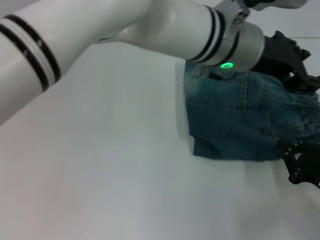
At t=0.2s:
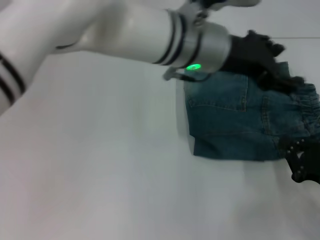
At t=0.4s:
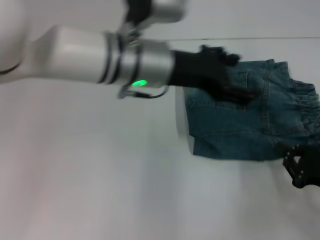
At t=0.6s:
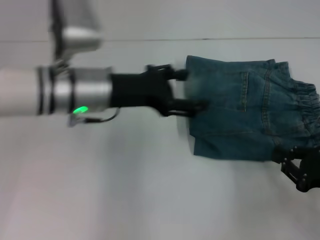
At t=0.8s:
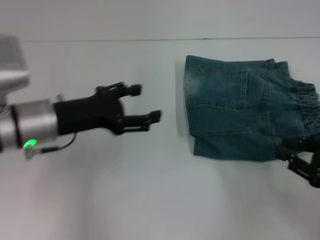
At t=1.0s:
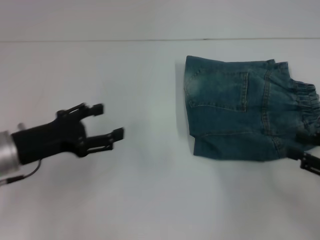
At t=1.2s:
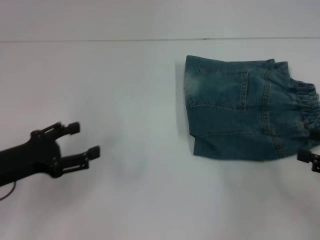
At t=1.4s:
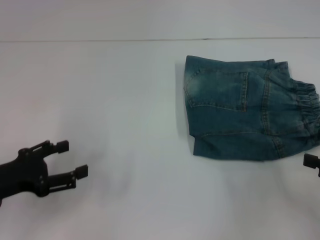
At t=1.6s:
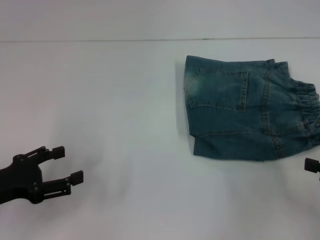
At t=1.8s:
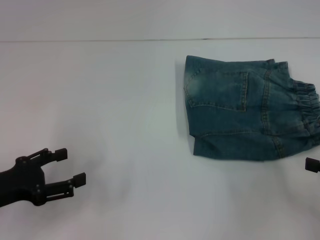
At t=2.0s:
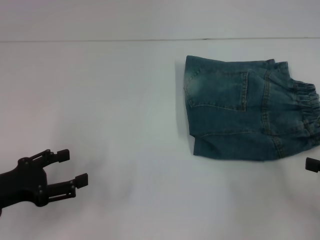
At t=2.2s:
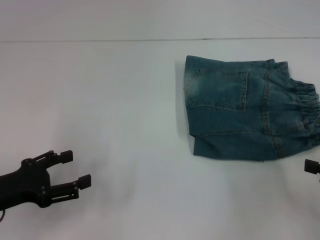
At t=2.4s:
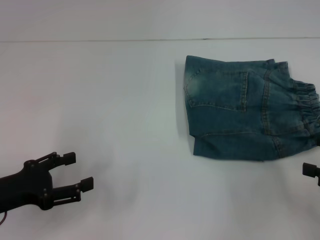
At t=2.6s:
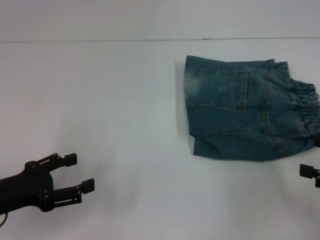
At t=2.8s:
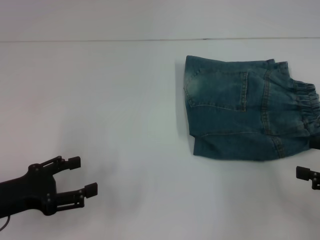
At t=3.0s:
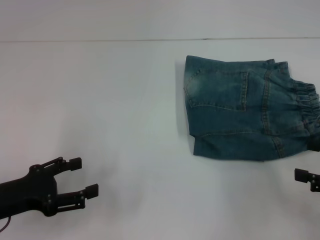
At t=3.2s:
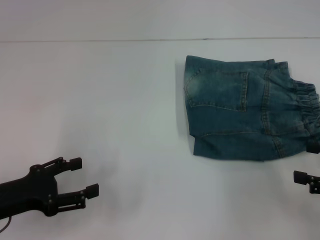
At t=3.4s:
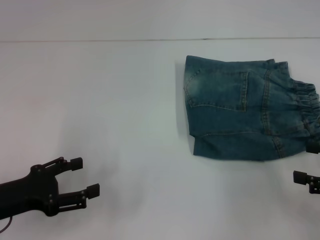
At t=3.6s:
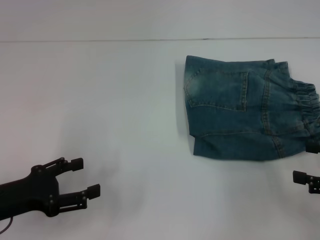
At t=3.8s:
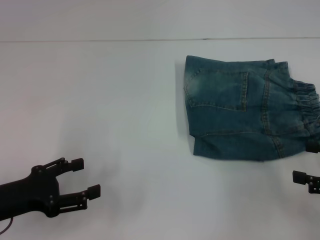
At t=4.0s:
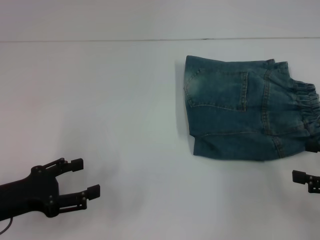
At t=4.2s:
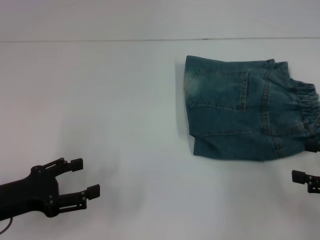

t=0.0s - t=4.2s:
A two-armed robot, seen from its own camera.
t=0.0s - t=1.4s: The left gripper goes some 40 cm to the left and downward, and opens up. Meanwhile the right gripper shifts roughly 10 cm upward and to the right, and opens.
t=1.4s - t=2.8s: The right gripper opens its fingers.
t=2.8s - t=4.2s: The two grippers keep their place.

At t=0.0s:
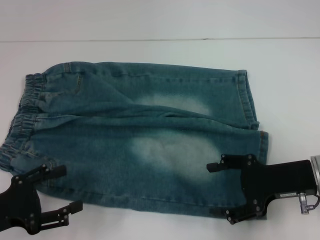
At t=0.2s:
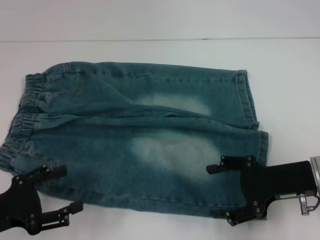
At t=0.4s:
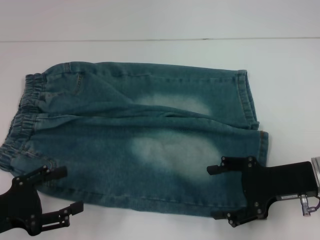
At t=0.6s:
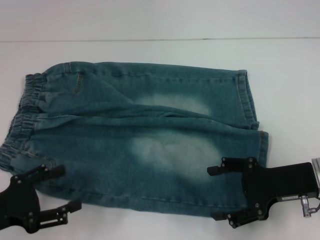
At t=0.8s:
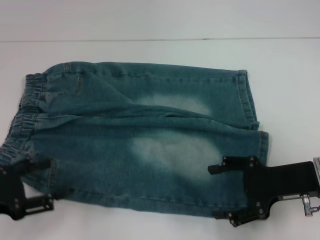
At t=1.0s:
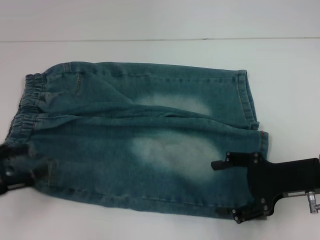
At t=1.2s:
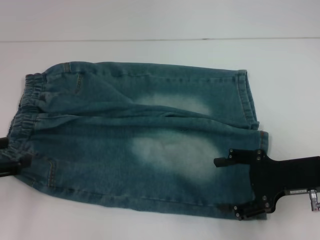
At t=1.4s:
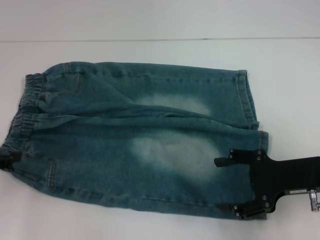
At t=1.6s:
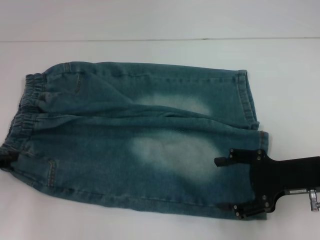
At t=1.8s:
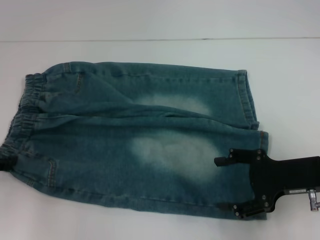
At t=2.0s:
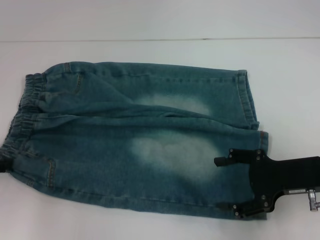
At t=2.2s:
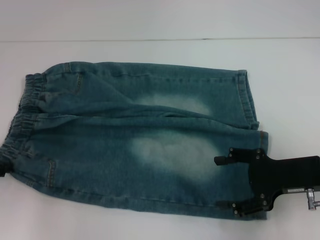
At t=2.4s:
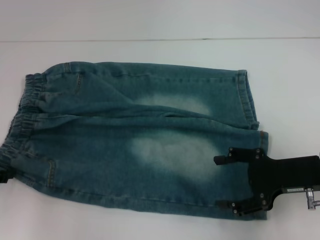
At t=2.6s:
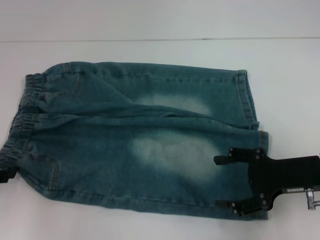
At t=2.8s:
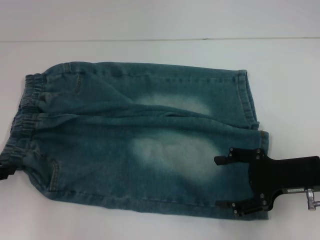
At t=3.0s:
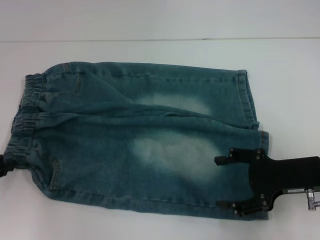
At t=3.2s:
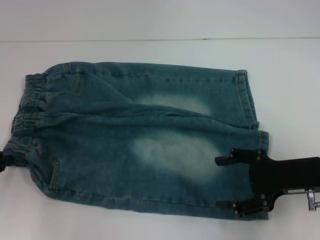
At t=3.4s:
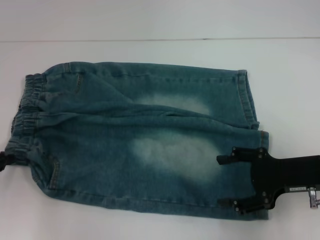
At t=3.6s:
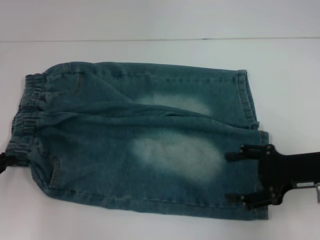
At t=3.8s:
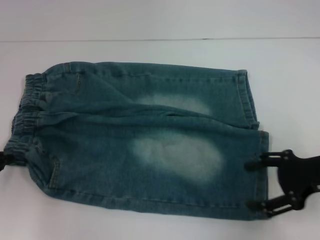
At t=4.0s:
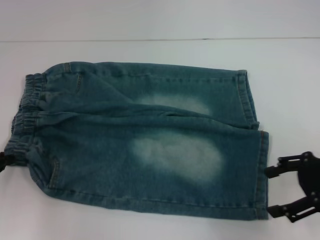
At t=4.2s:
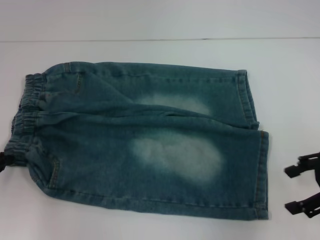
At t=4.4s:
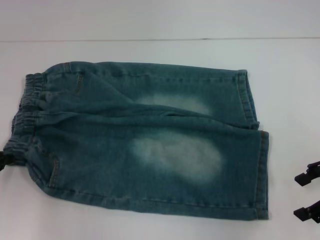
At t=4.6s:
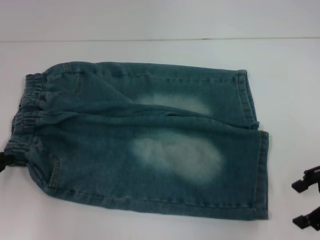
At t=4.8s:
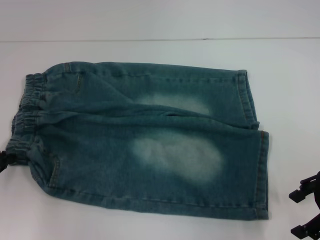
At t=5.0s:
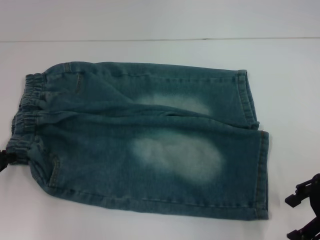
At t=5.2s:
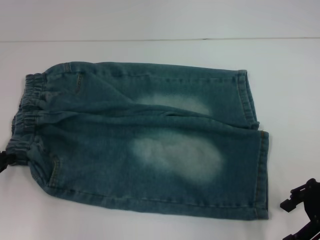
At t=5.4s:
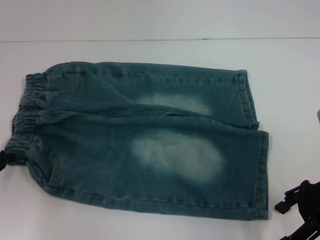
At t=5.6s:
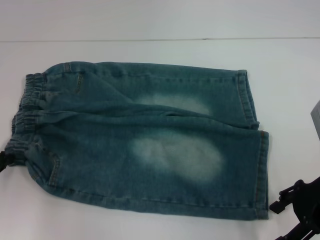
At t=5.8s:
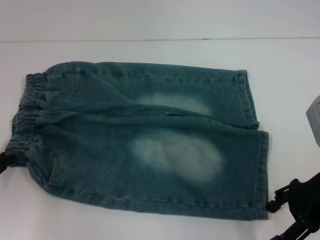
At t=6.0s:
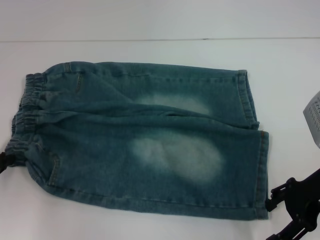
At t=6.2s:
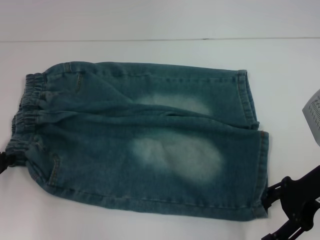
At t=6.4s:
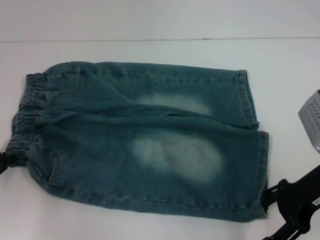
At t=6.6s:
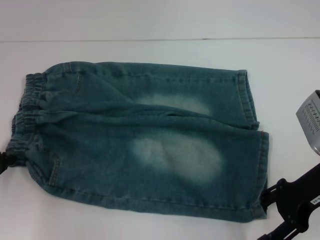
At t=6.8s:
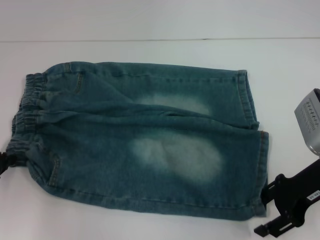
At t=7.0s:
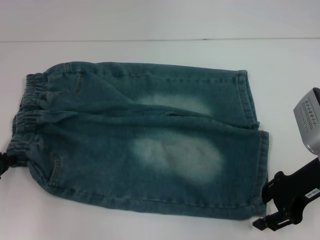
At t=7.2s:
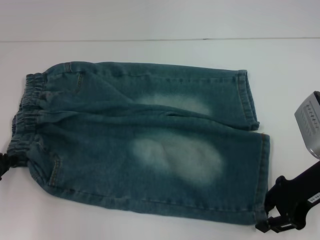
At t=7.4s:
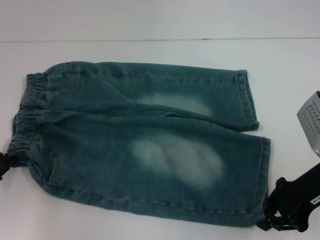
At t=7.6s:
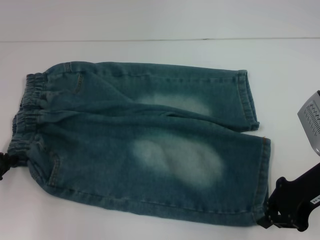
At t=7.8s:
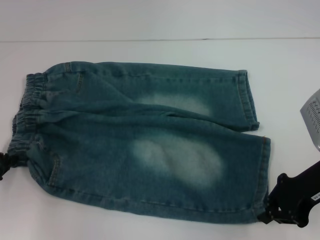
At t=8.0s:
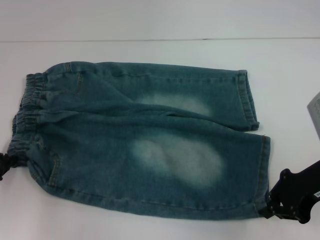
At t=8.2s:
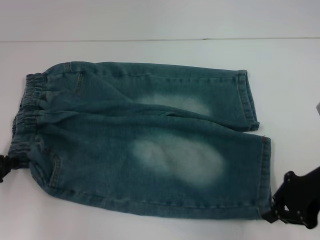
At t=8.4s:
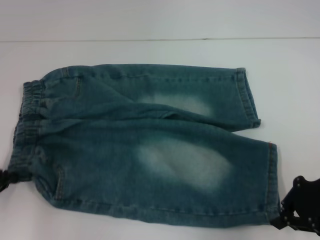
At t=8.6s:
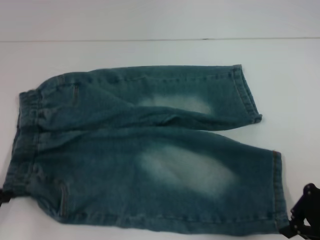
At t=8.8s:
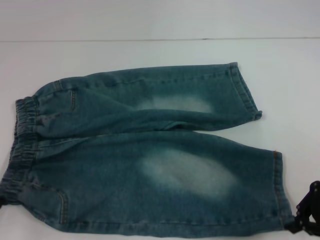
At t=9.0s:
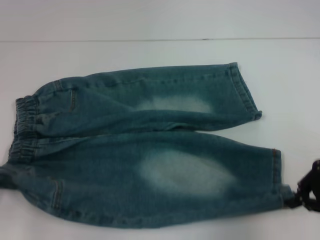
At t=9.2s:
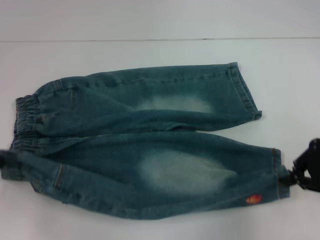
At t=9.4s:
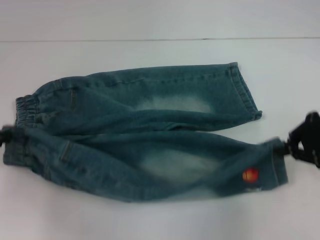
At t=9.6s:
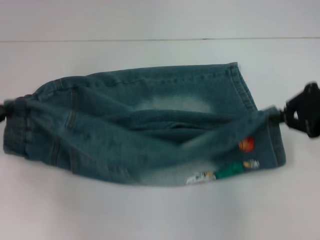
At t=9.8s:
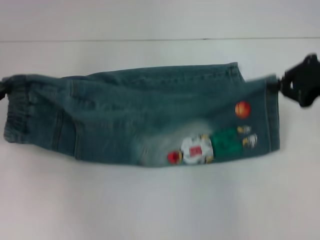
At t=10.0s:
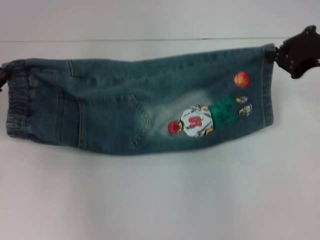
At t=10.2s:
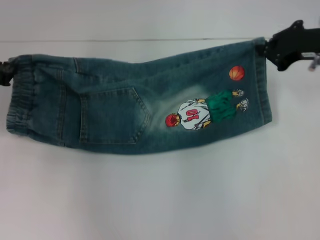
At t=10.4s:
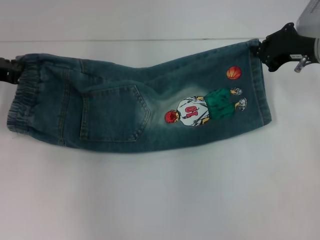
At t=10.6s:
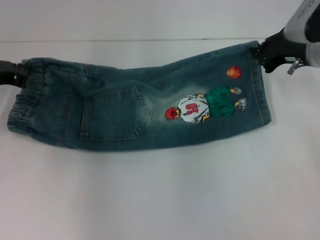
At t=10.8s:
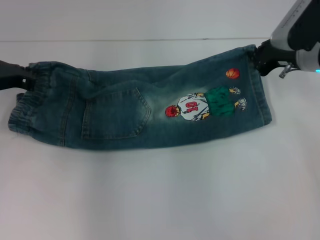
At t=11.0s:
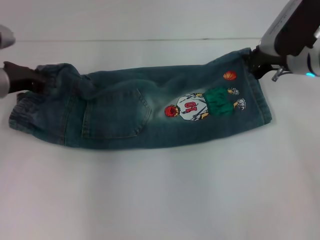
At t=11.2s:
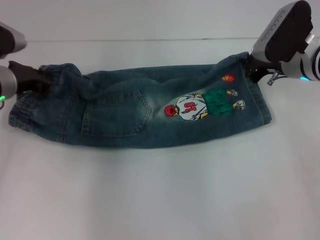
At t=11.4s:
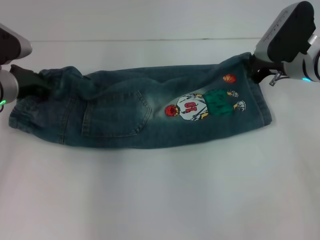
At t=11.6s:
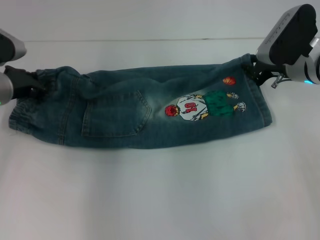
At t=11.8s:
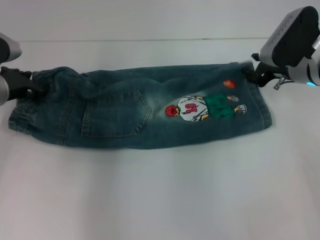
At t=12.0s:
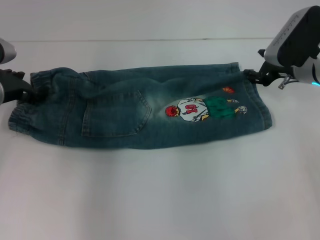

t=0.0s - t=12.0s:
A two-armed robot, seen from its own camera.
Step, t=0.0s - t=3.2s: Hold the lower left waistband with your left hand.
Step, t=3.4s - t=8.0s: Grab the lower right pant leg with your right hand.
Step, t=8.2s - t=11.8s: Fold upward with your right hand.
t=0.0s - t=1.6s: The left gripper goes some 10 cm forward and upward.
t=1.6s - t=3.0s: The left gripper closes up.
t=3.0s - t=4.4s: The left gripper closes its fingers; the right gripper shifts some 5 cm upward.
t=4.4s - t=6.0s: The right gripper changes place by some 5 cm.
t=6.0s - t=7.6s: The right gripper closes.
t=7.6s - t=9.0s: The left gripper goes roughly 5 cm backward; the right gripper travels to the right by about 5 cm.
t=9.0s - t=10.4s: The right gripper moves forward, approximately 15 cm; the left gripper is displaced forward and to the right by approximately 15 cm.
t=10.4s - t=12.0s: The right gripper goes some 5 cm downward, and opens its fingers. The left gripper ends up some 5 cm from where it was, and opens its fingers.

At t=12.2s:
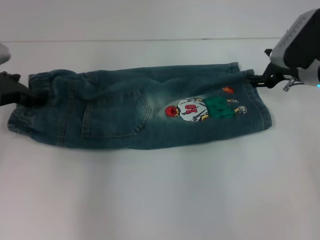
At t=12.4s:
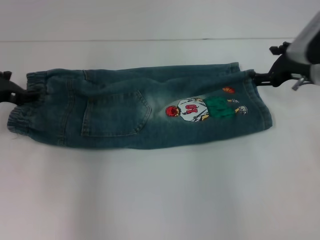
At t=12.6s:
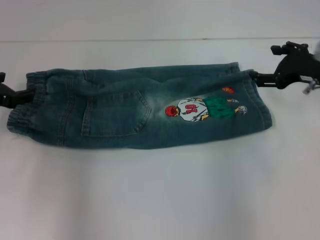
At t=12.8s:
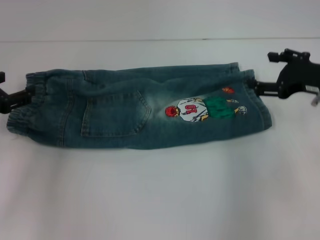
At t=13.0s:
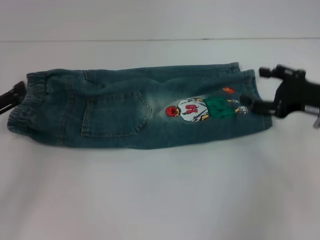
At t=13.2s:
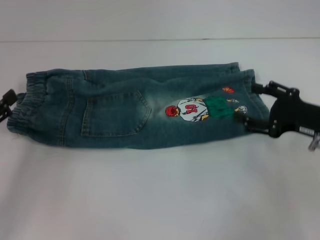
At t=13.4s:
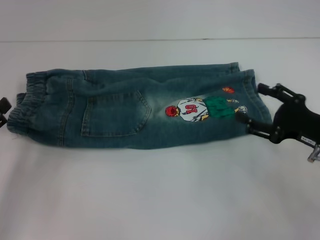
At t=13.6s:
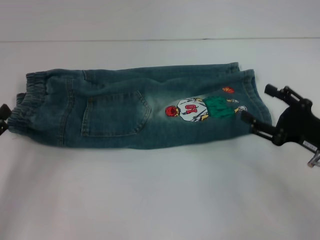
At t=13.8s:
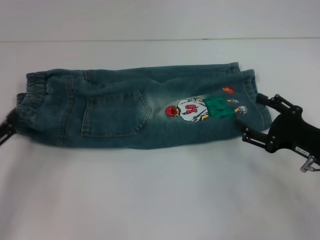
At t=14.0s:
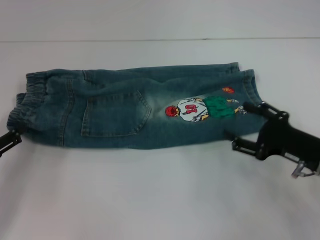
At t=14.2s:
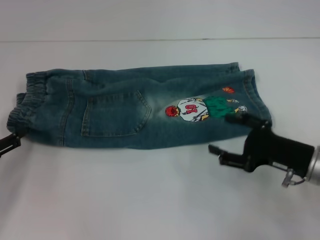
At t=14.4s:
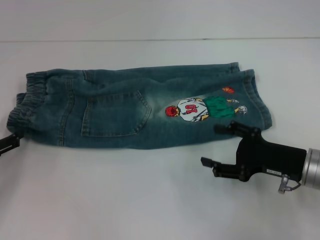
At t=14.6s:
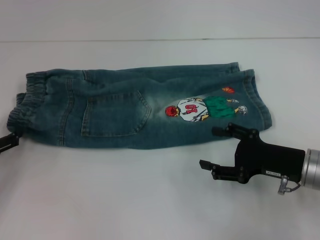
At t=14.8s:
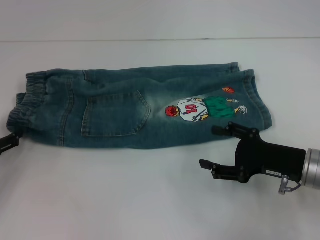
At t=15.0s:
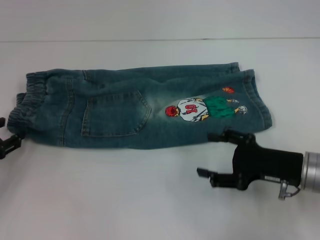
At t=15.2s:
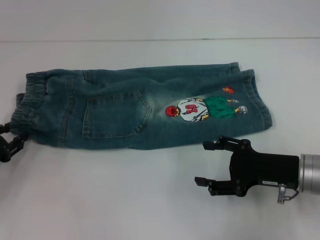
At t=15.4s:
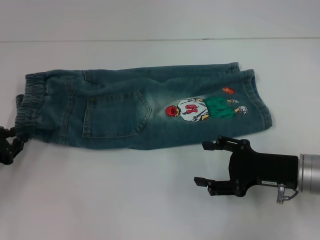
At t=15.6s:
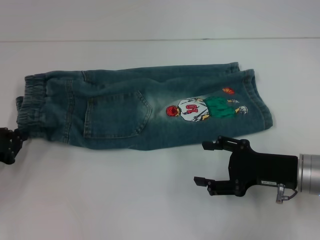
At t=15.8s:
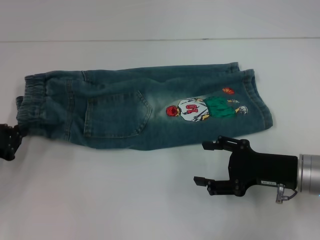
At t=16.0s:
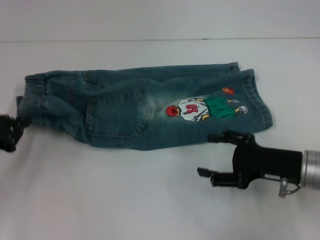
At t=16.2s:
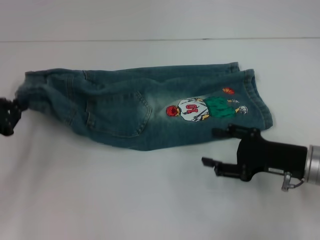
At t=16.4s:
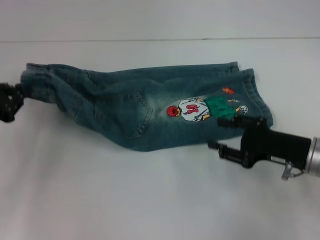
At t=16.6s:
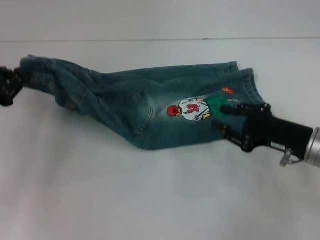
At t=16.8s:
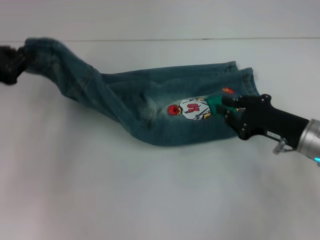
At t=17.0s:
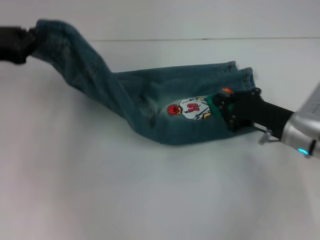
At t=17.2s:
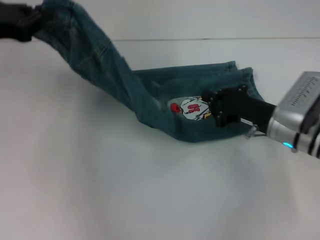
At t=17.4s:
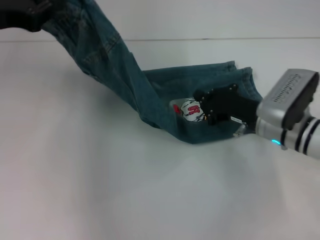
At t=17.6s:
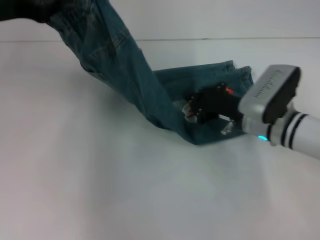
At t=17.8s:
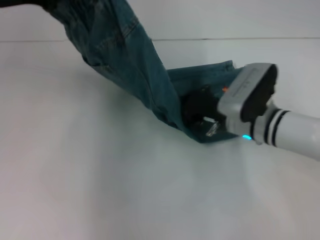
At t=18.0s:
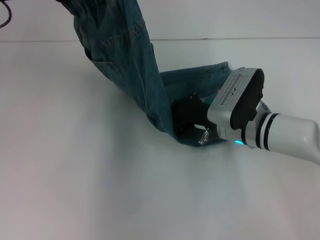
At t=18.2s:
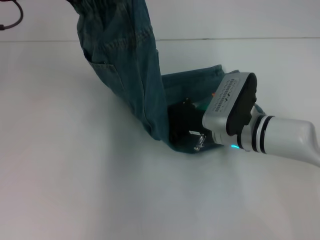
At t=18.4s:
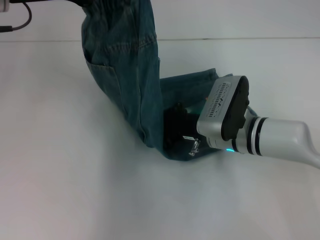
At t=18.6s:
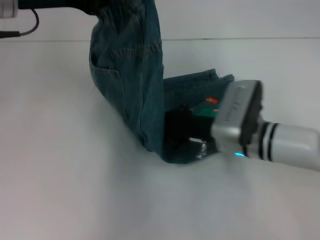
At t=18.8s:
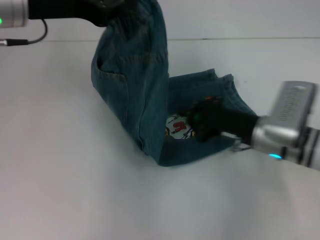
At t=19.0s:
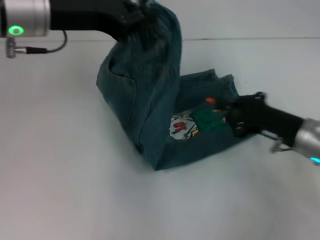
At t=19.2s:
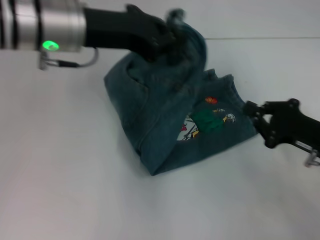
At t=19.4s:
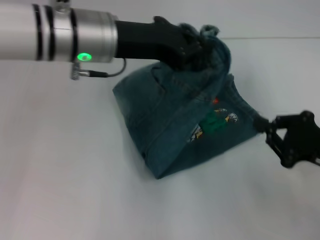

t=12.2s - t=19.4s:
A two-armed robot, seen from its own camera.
Step, t=12.2s - t=15.8s: Hold the waistband with your left hand.
Step, t=16.0s - t=18.4s: Press the middle of the pants with your right hand.
t=12.2s - t=13.6s: The two grippers go roughly 15 cm backward.
t=13.6s - t=15.0s: The left gripper shifts some 5 cm forward.
t=15.0s - t=16.6s: The left gripper moves upward, some 10 cm, and closes.
t=16.6s - t=18.0s: The right gripper shifts about 15 cm to the left and forward, and closes its fingers. Meanwhile the left gripper goes some 15 cm upward, to the right and forward.
t=18.0s - t=19.4s: The right gripper heads to the right and backward, covering roughly 20 cm. The left gripper shifts some 15 cm to the right.
